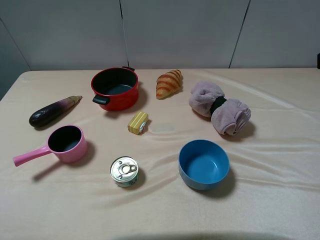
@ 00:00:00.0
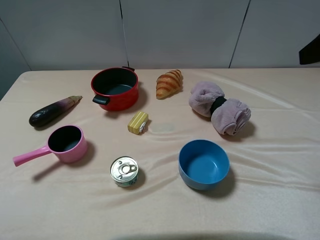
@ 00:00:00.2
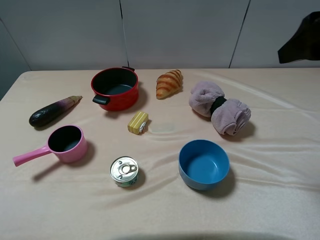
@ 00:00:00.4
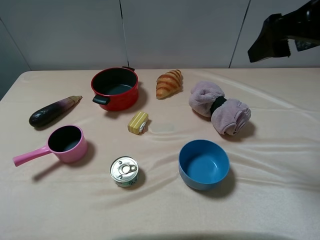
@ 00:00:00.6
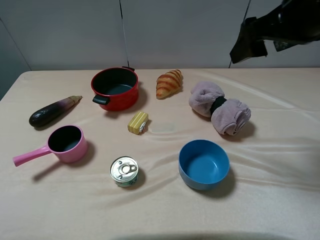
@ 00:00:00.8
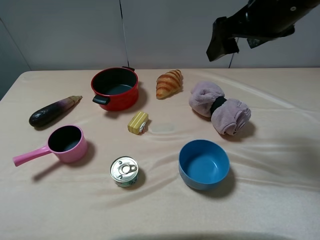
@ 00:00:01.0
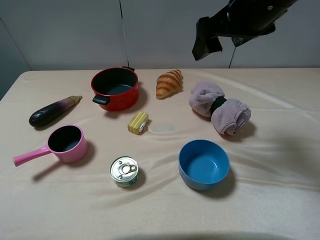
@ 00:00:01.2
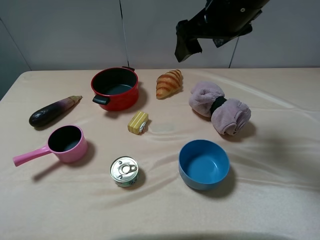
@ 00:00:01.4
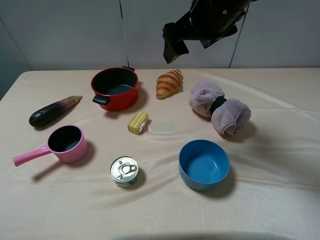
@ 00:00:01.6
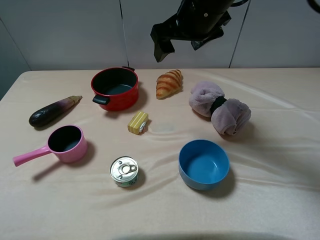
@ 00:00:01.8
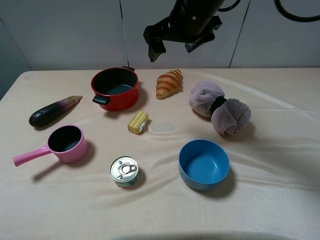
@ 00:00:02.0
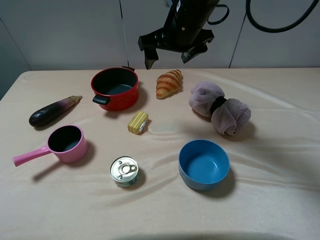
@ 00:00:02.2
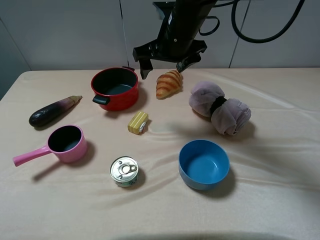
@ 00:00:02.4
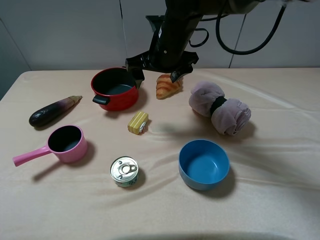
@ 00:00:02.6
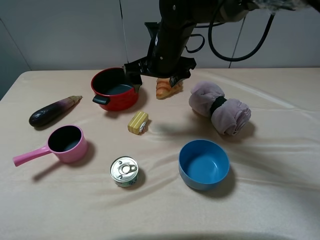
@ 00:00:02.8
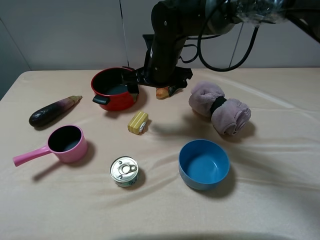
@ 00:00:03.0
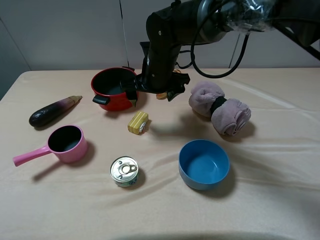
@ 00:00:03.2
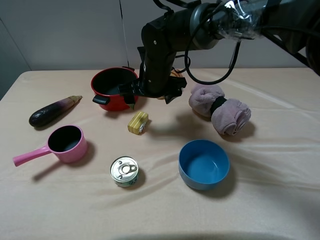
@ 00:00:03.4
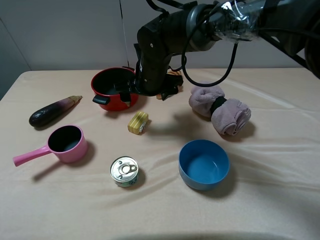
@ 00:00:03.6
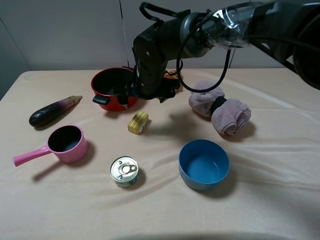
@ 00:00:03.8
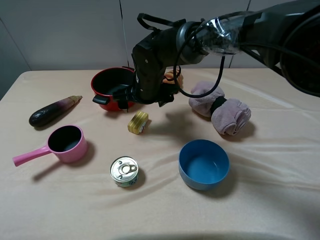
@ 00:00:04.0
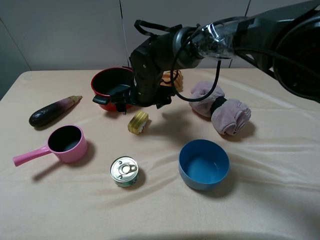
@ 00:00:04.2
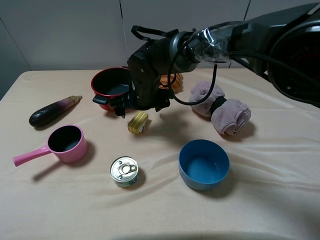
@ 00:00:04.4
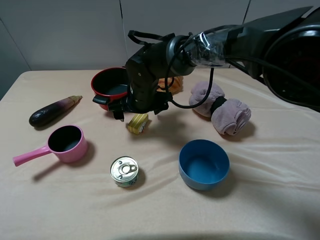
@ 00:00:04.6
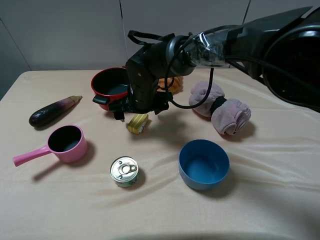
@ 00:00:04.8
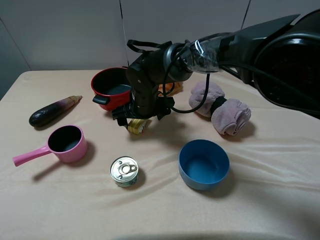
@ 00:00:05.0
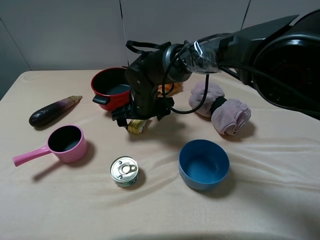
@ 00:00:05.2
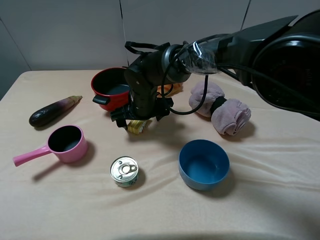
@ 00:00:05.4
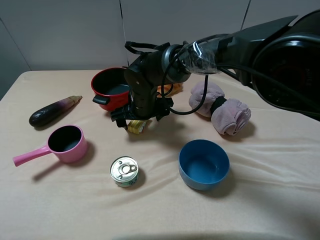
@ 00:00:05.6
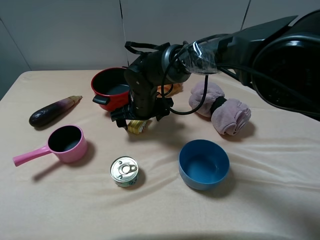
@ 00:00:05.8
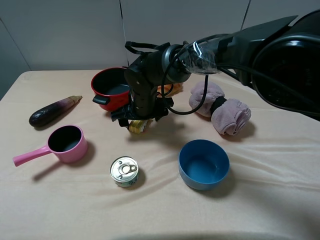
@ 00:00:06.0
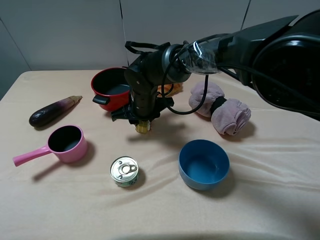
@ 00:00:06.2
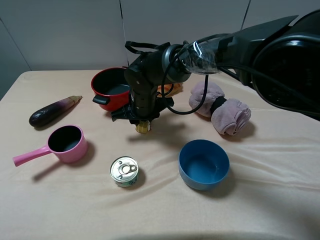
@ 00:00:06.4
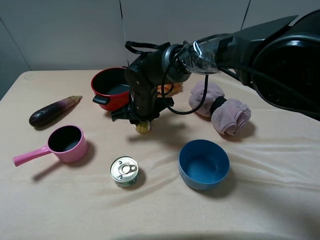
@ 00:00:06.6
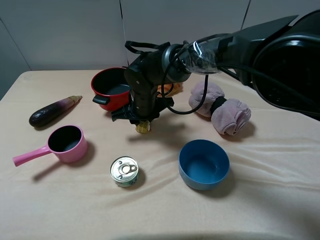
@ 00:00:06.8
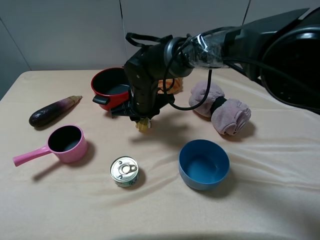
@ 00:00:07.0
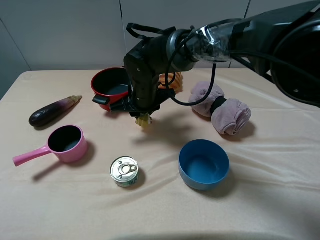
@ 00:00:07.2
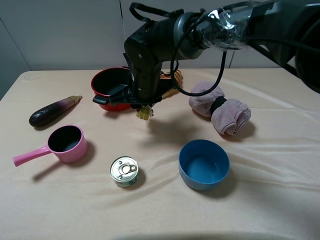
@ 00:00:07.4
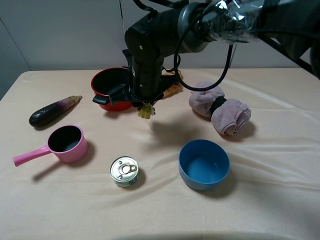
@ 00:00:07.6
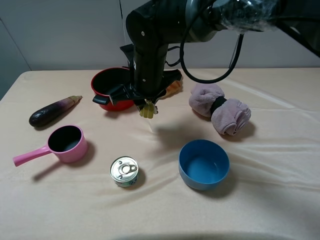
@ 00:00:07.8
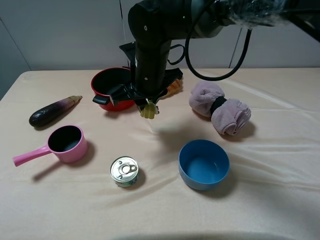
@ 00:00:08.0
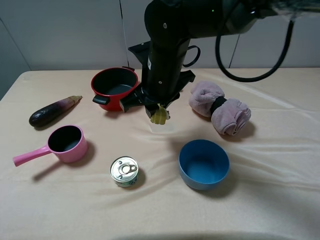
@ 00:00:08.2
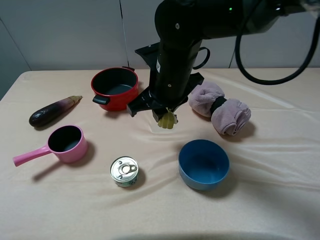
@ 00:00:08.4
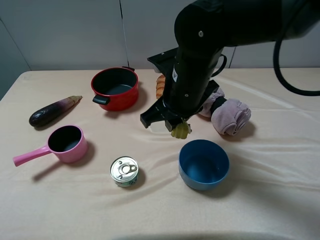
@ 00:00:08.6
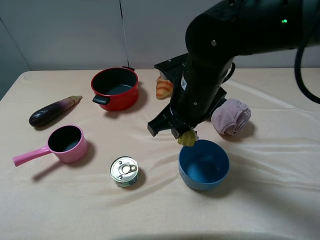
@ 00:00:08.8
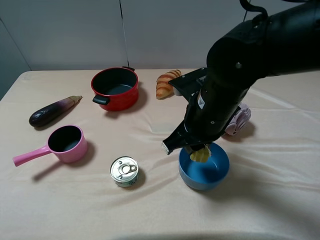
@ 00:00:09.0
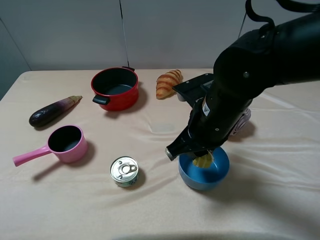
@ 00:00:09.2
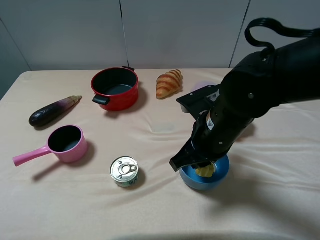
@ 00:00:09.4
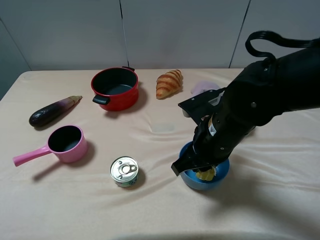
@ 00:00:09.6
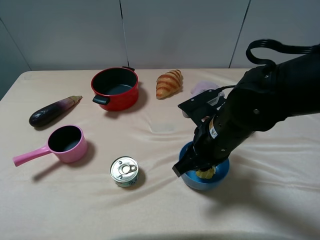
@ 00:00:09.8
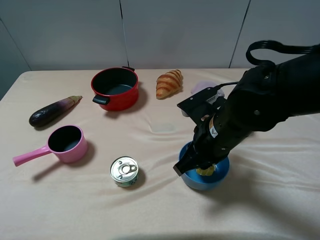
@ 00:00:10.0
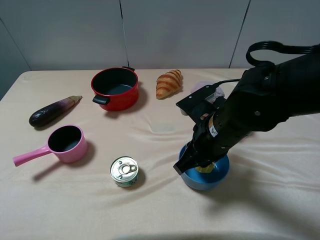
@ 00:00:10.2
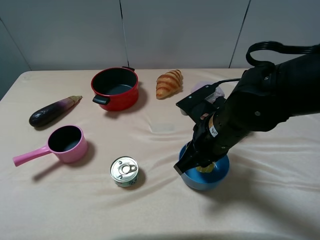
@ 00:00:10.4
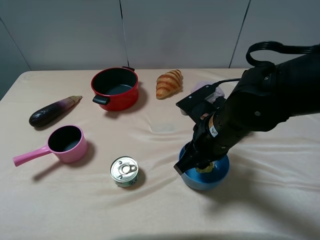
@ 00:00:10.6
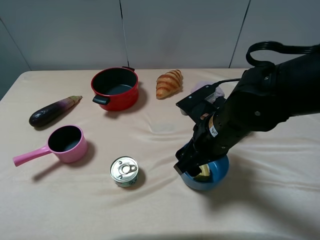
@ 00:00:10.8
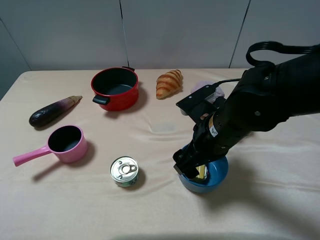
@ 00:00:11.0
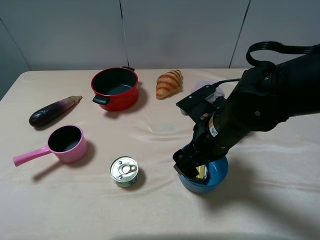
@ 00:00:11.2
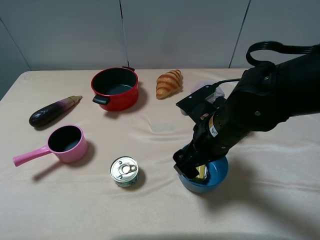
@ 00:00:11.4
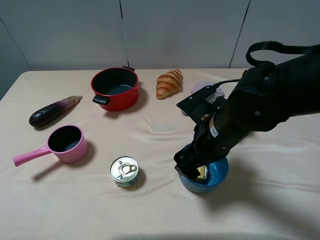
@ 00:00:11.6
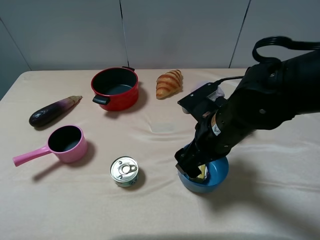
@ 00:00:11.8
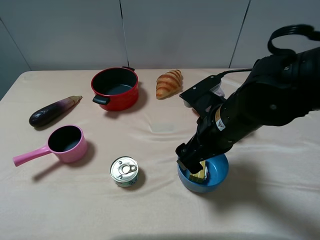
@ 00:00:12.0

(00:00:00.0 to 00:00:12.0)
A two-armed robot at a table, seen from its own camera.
Task of the whole recording: pick up an item with a gripper and place it in a random container on the table.
Step, 00:00:00.0 - 00:00:06.2: Grasp the yellow cake with the right gripper.
Step, 00:00:06.4 - 00:00:11.0: Place the yellow cake into the blue bowl with the right gripper.
00:00:00.0 - 00:00:01.6: The right gripper is displaced to the left and forward by roughly 25 cm.
00:00:01.6 - 00:00:03.0: The right gripper goes approximately 15 cm downward and to the left.
00:00:03.0 - 00:00:04.4: The right gripper moves downward, roughly 5 cm.
00:00:04.4 - 00:00:06.0: The grippers make only small movements.
00:00:06.0 - 00:00:07.6: The right gripper shifts approximately 5 cm upward, and closes its fingers.
00:00:07.6 - 00:00:09.0: The right gripper travels to the right and backward by about 15 cm.
00:00:09.0 - 00:00:10.4: The grippers make only small movements.
00:00:10.4 - 00:00:12.0: The right gripper opens.

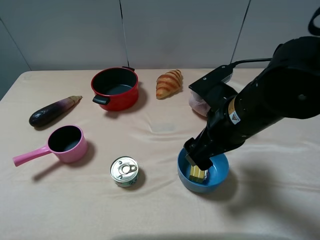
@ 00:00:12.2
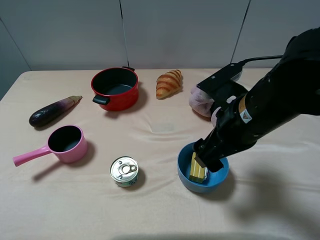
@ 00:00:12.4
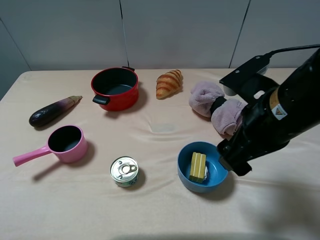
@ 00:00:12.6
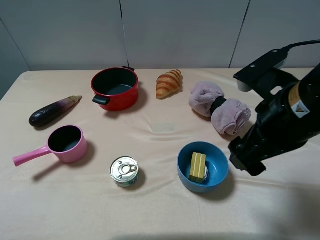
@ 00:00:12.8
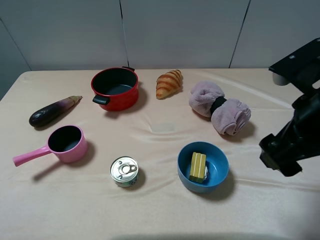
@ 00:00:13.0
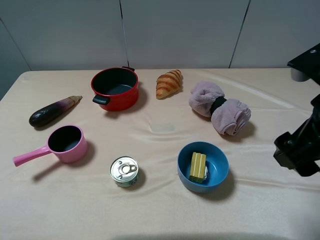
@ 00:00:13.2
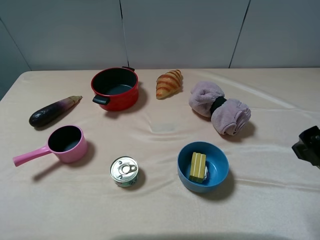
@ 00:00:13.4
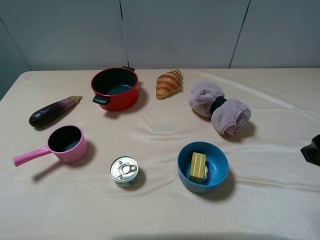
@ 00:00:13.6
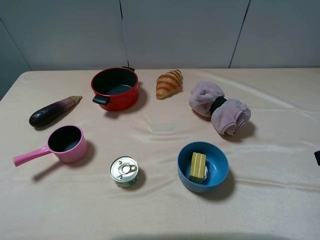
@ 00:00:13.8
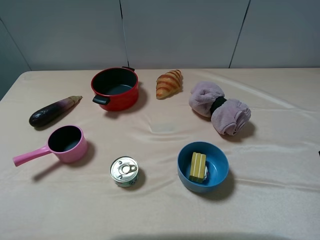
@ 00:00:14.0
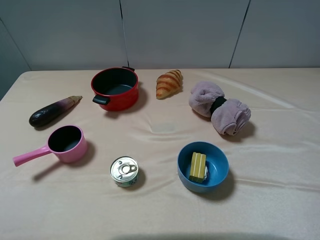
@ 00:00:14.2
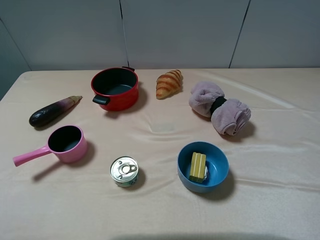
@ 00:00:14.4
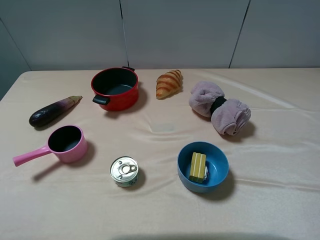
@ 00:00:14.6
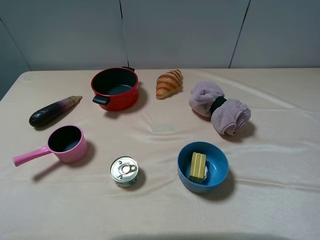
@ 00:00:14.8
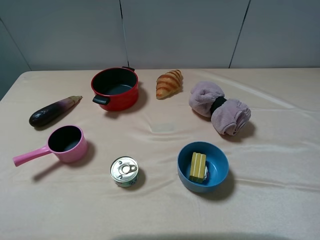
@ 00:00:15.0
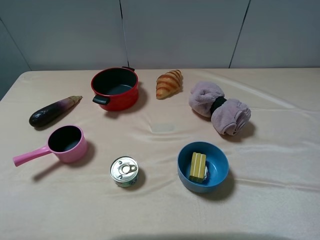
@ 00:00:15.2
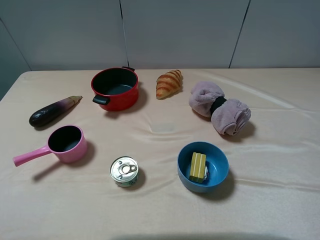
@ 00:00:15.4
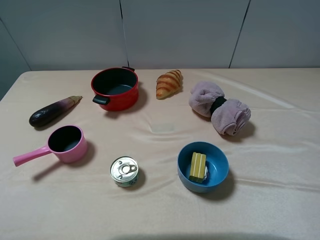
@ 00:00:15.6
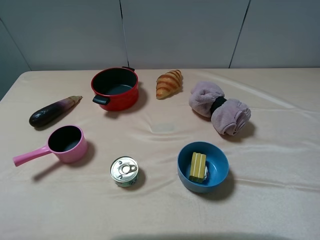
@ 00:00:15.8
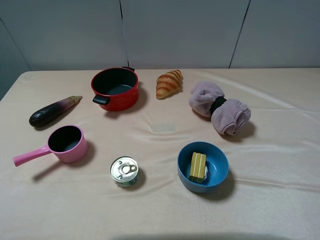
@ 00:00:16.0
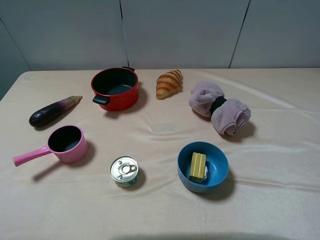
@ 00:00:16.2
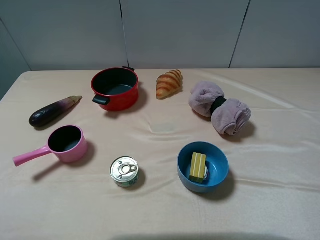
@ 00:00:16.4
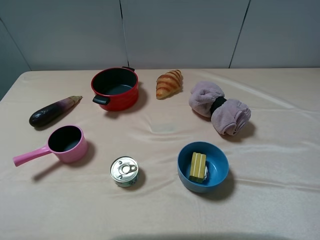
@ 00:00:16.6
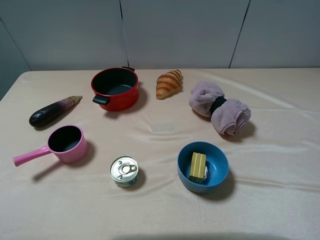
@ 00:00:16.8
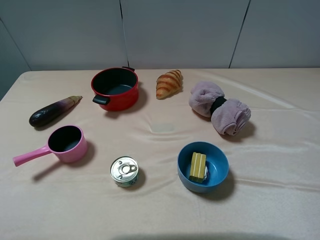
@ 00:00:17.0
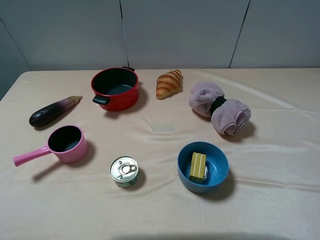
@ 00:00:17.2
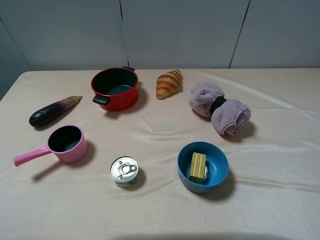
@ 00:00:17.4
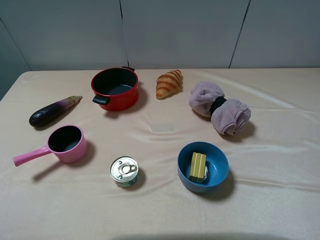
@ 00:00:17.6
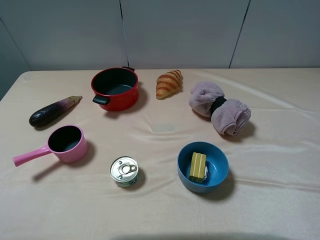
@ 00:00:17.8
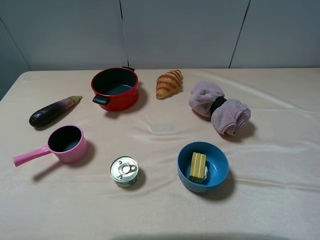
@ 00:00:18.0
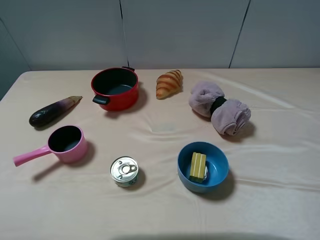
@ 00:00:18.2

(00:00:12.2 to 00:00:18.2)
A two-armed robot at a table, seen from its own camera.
Task of the whole recording: pick up an item with a gripper and place it in a random container on the table.
00:00:12.2 - 00:00:13.8: The right gripper heads to the right, backward and upward, covering roughly 20 cm.
